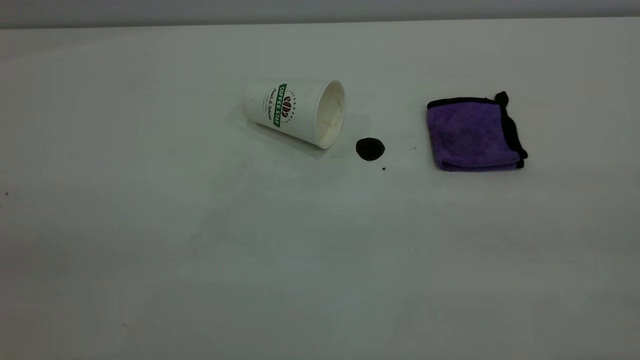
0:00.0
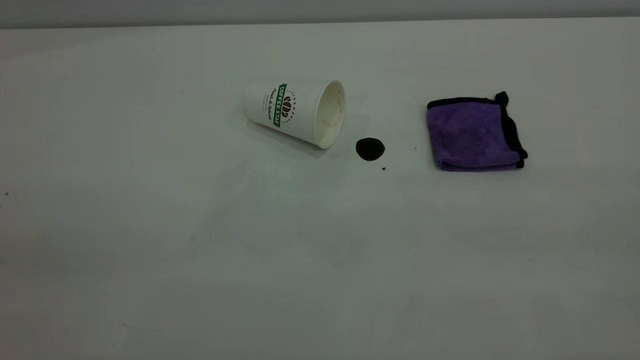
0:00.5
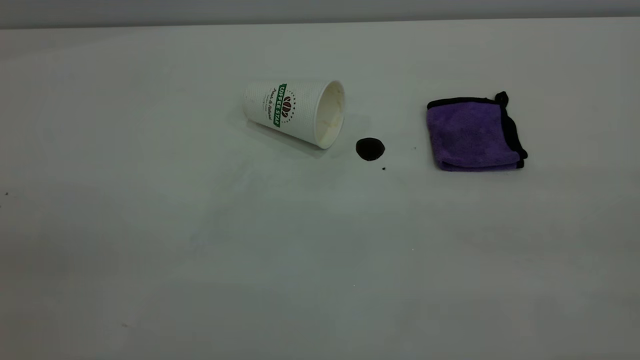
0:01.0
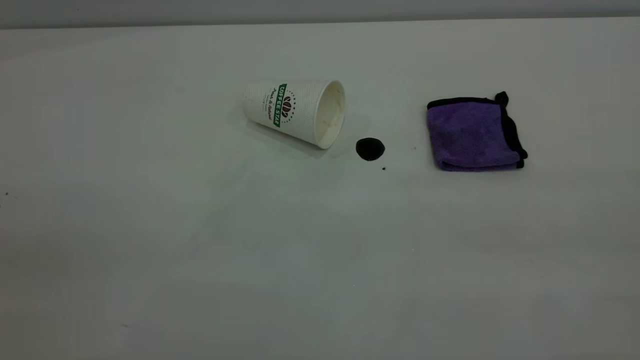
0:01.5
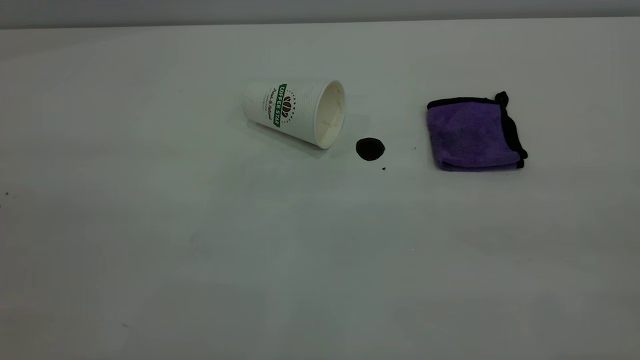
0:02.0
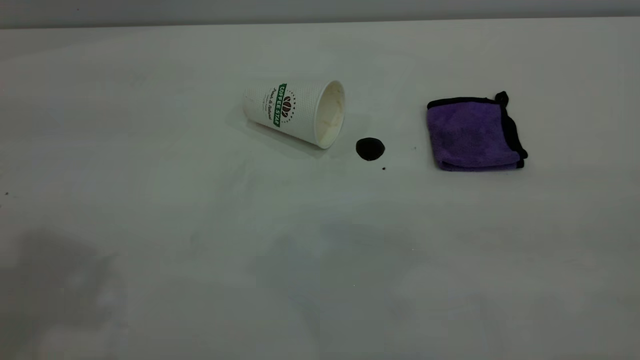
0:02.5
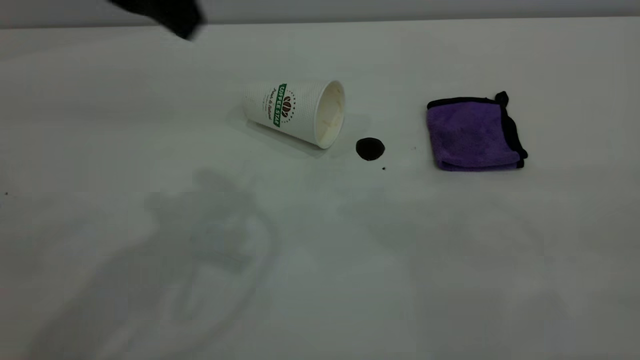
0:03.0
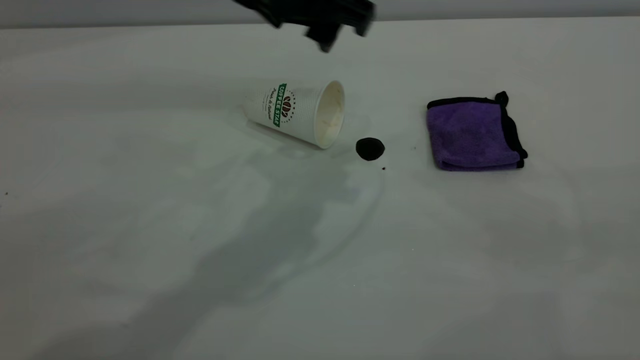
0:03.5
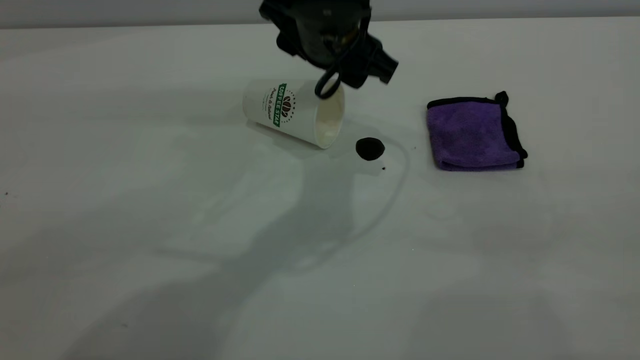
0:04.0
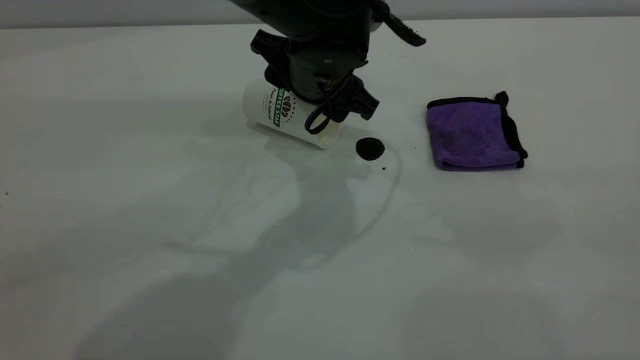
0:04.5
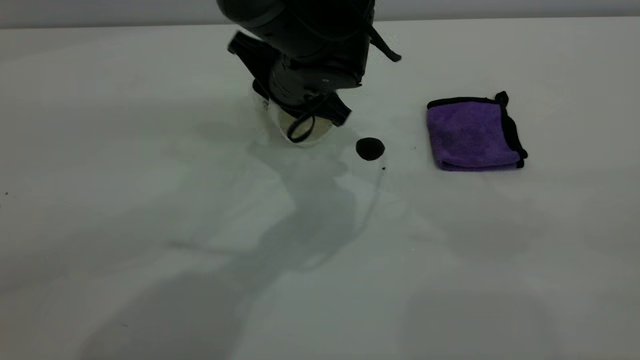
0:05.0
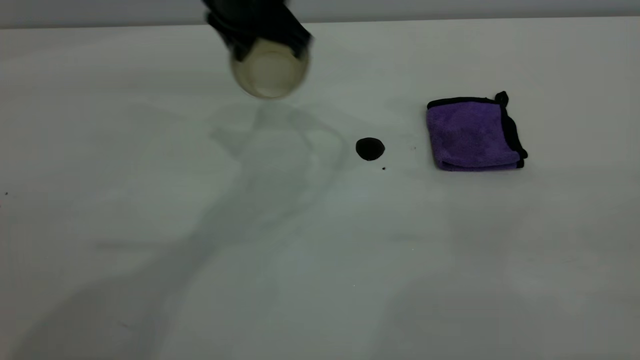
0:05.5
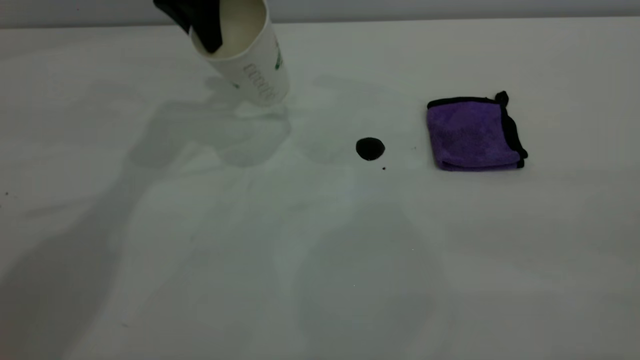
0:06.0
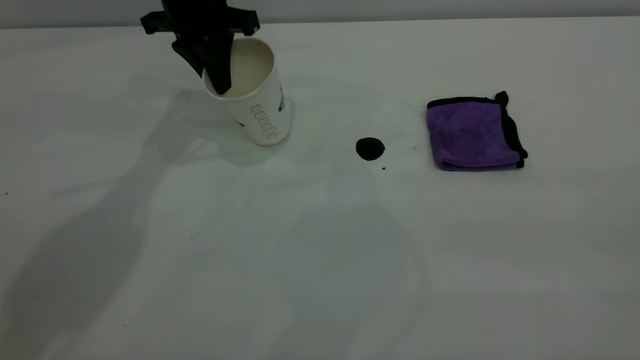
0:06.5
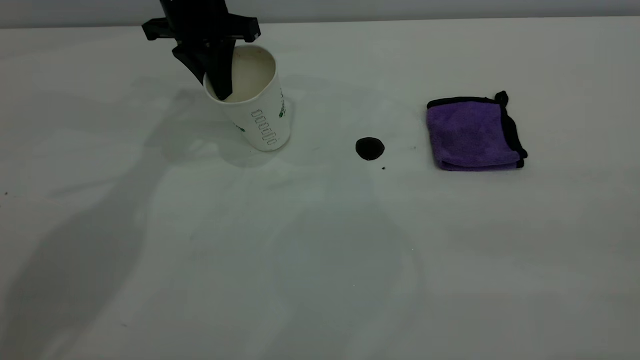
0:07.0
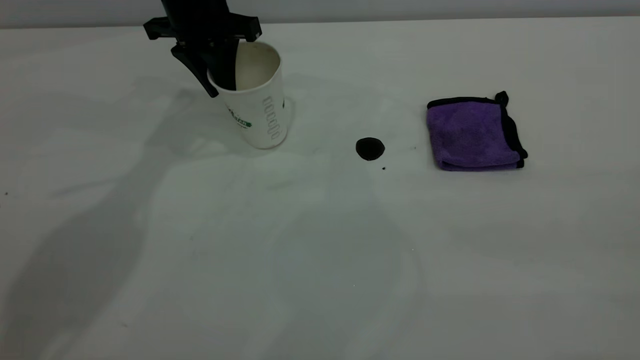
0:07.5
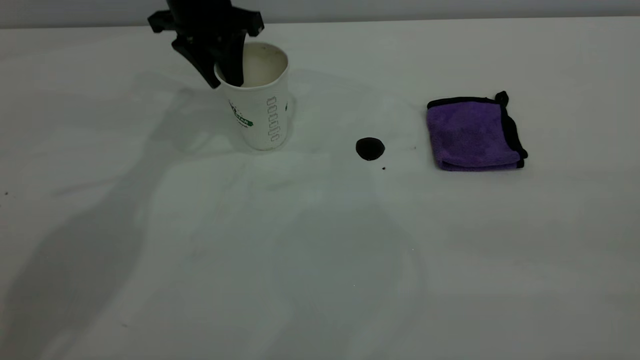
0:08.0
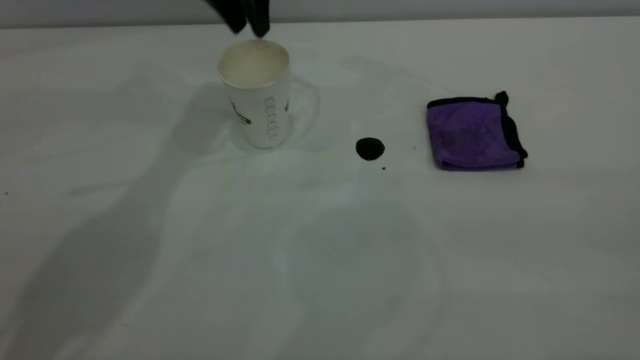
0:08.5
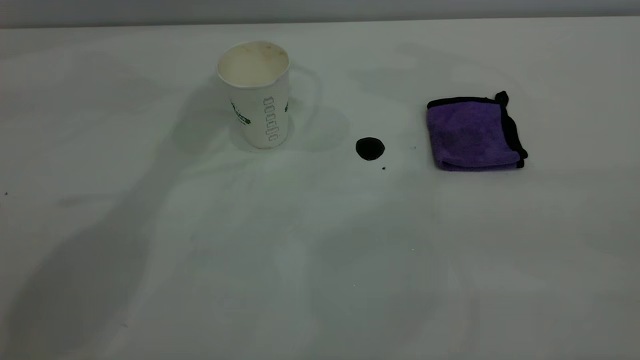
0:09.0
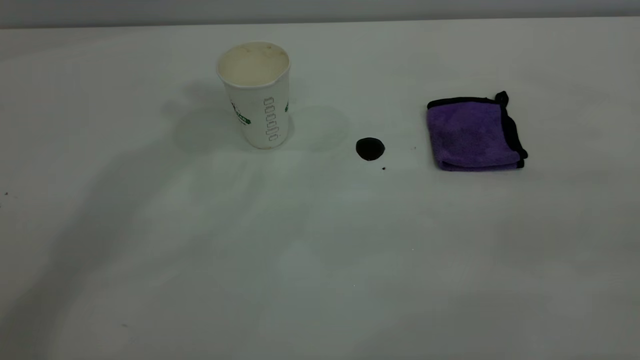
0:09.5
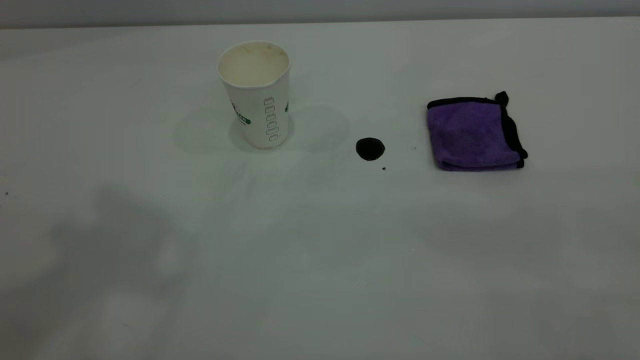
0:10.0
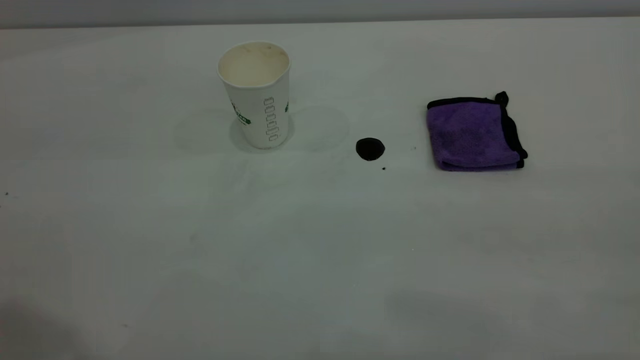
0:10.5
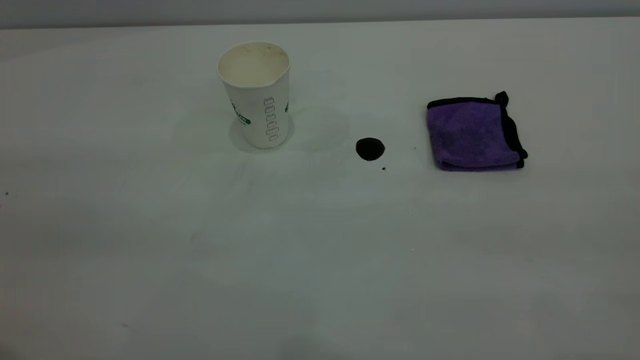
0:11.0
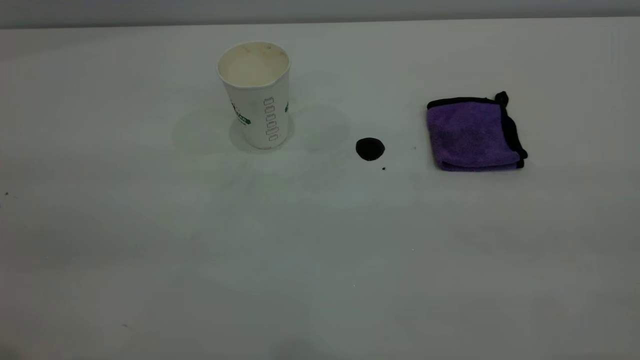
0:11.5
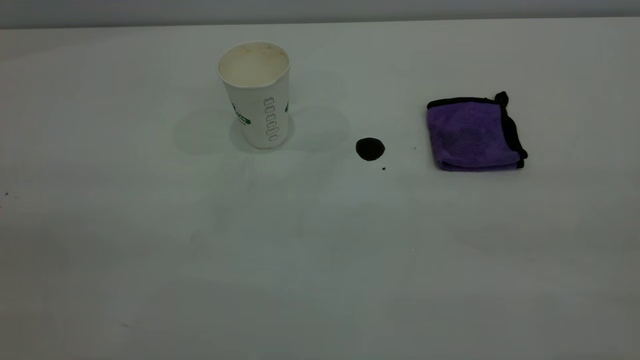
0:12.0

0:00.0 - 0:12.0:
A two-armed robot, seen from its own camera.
Task of the whole recording: the left gripper pick up the fallen cup and place it upright, the right gripper grasp the purple rag and wipe the coffee stain on the table, the right gripper put the purple rag back in its original position.
Step, 0:00.0 - 0:08.0: Stand the paper cup upright.
0:02.0 - 0:04.0: The left gripper travels forward, to the right and downward by about 50 cm.
0:04.0 - 0:06.0: The left gripper shifts about 20 cm to the left, forward and upward, and closes its fingers.
0:06.0 - 0:08.0: The left gripper is displaced downward by about 5 cm, and opens up.
0:08.0 - 0:10.0: The left gripper goes approximately 40 cm upward and backward.

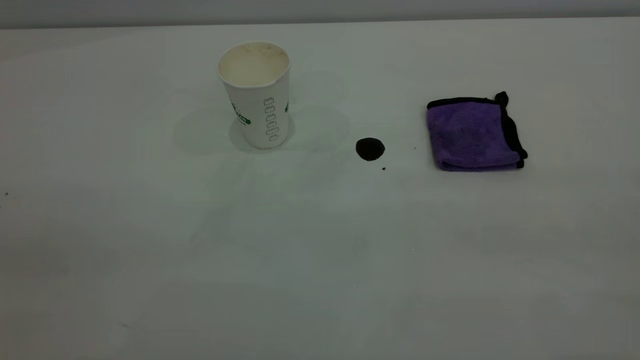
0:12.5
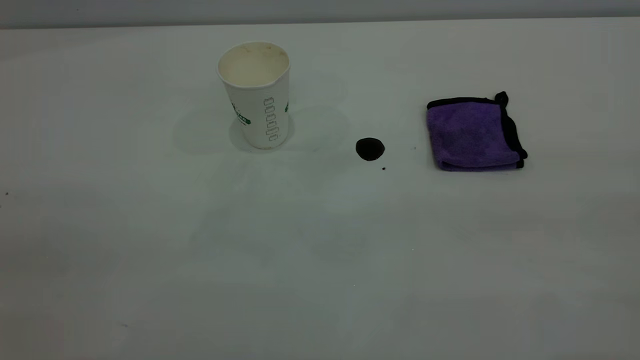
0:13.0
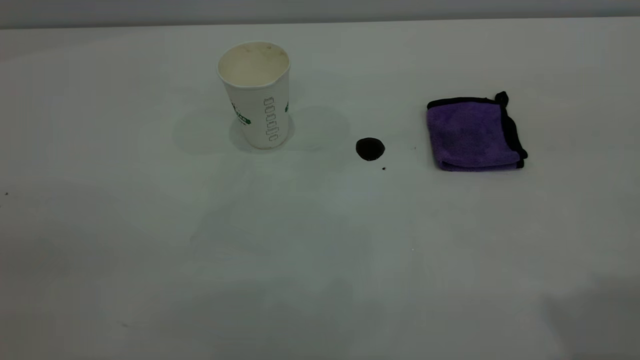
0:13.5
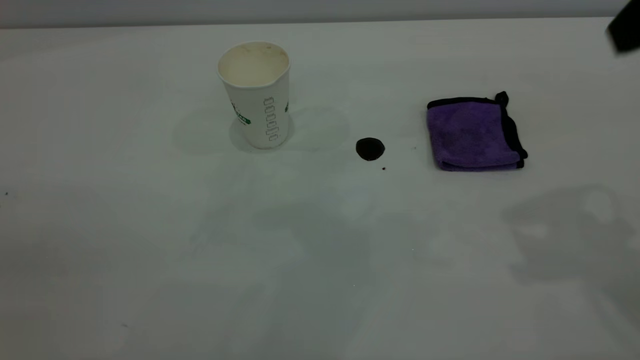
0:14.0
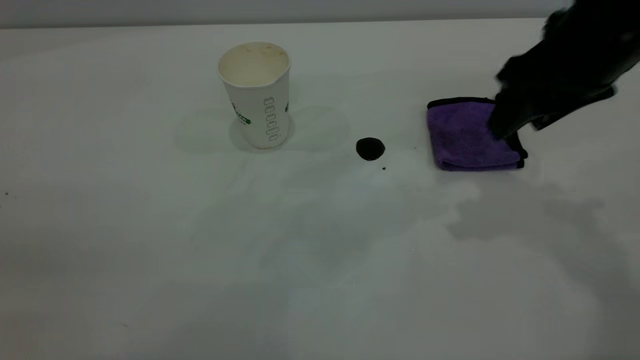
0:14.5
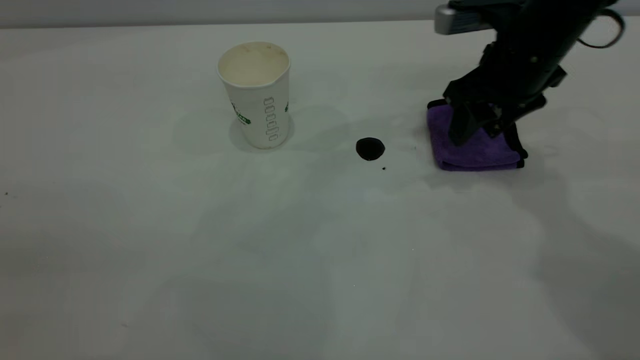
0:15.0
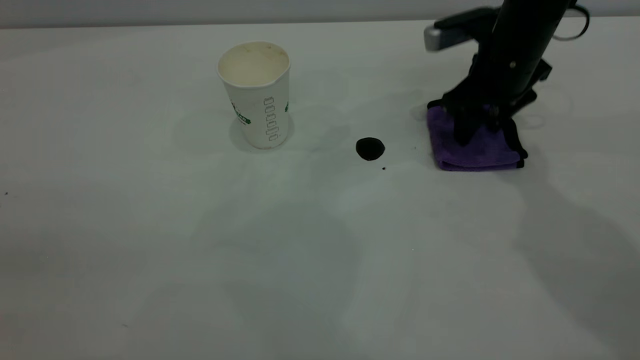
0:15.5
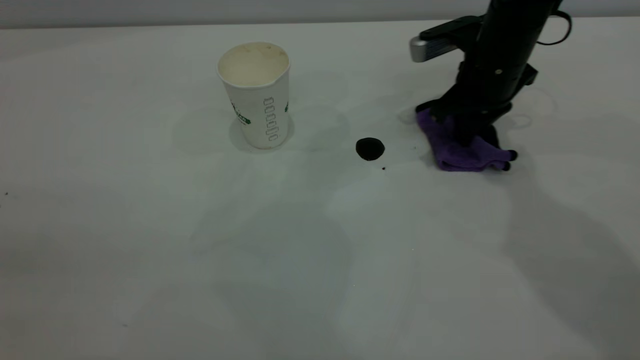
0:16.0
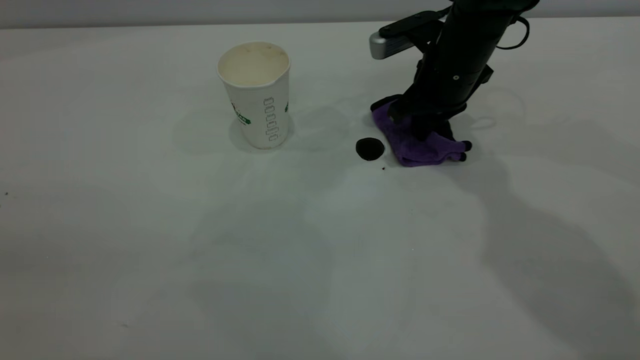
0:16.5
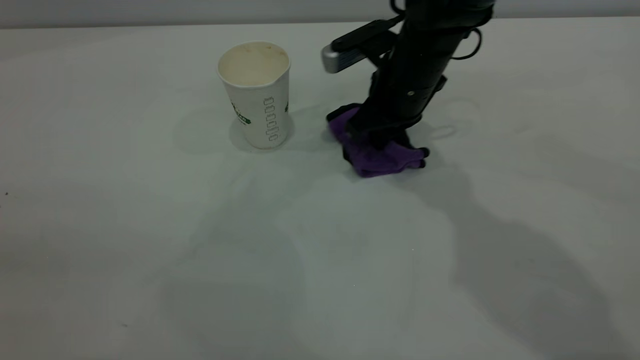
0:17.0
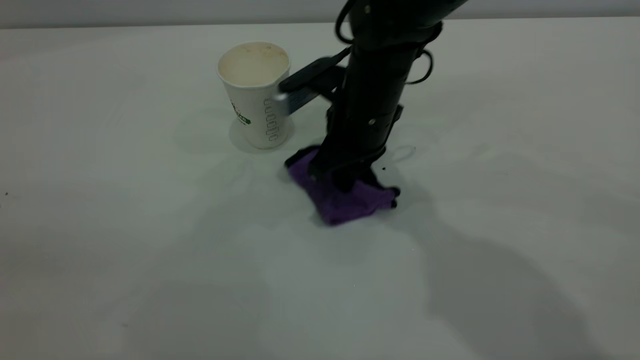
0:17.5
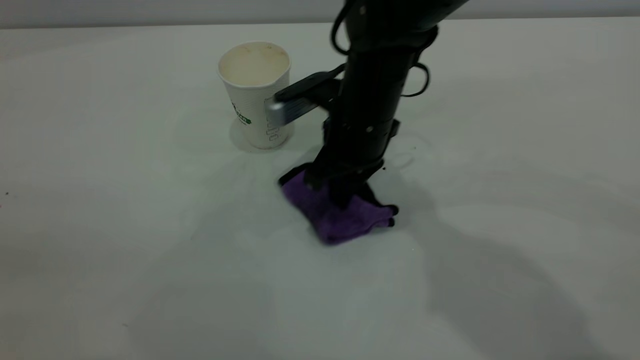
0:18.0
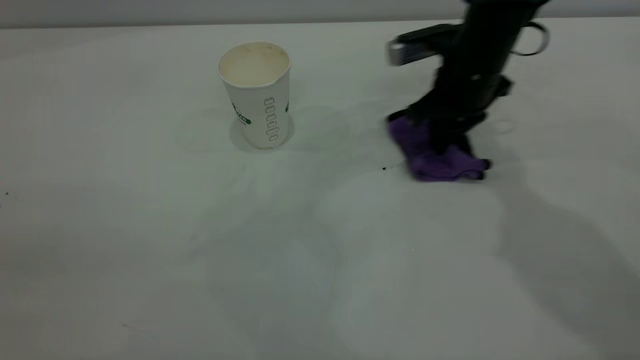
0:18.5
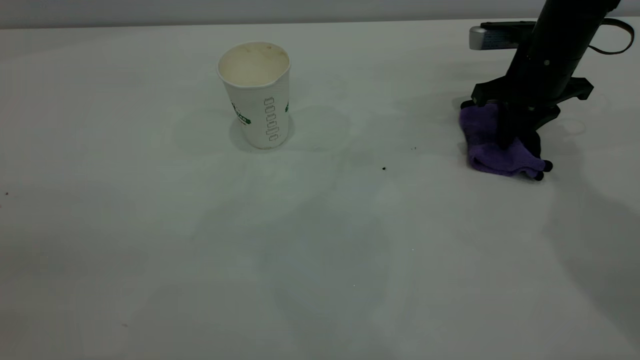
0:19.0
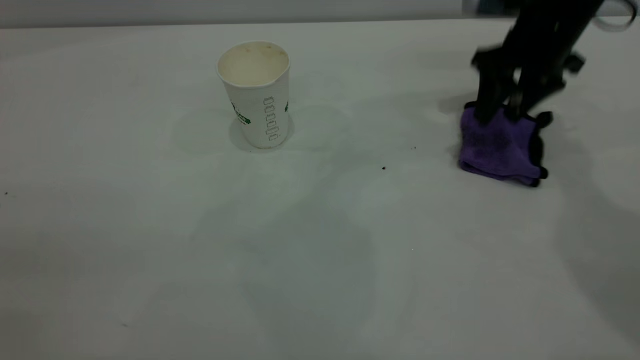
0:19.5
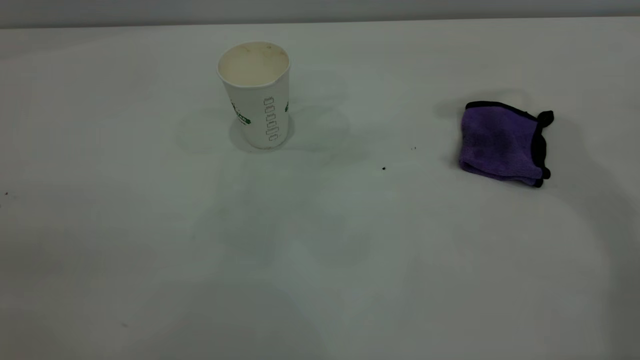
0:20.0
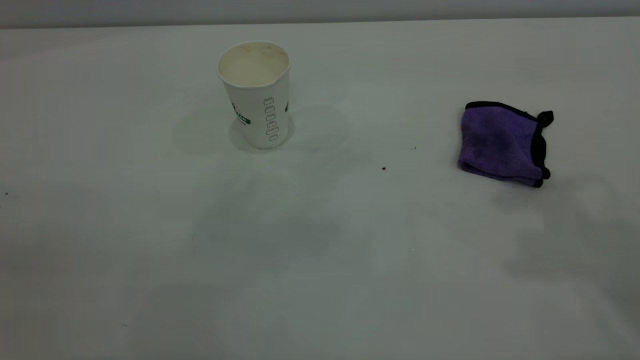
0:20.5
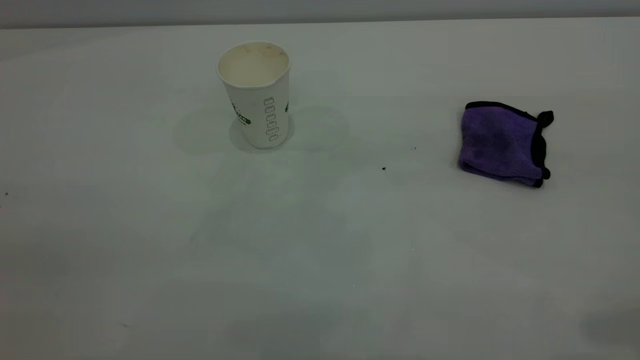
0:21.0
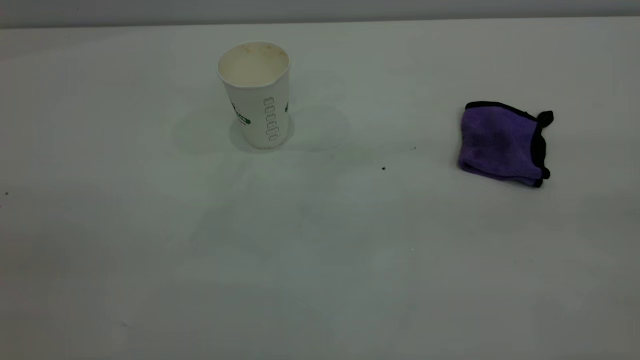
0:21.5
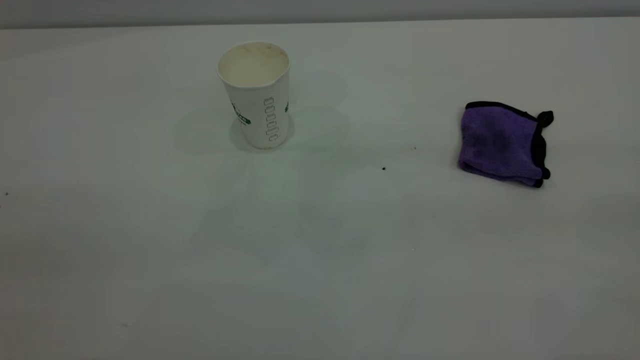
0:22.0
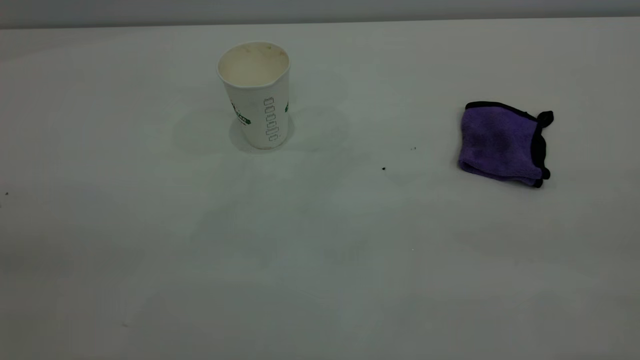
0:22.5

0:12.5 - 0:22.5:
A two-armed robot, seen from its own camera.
Task of the whole recording: the left gripper pick up the fallen cup and place it upright, the right gripper grasp the purple rag and wipe the coffee stain on the table, the right gripper put the purple rag back in its original position.
Step, 0:12.5 - 0:19.5: Wipe the stains off the table with a rag.
0:12.5 - 0:14.5: The right gripper goes about 35 cm forward and downward.
0:14.5 - 0:16.5: The right gripper travels forward, downward and to the left by approximately 15 cm, and closes its fingers.
0:16.5 - 0:18.5: The right gripper goes to the left and returns, some 10 cm each way.
0:18.5 - 0:20.5: The right gripper heads upward and backward, covering some 40 cm, and opens.
